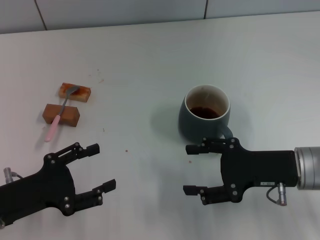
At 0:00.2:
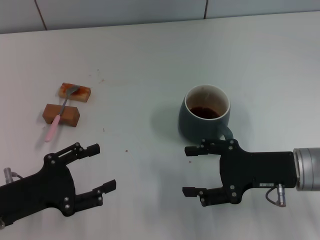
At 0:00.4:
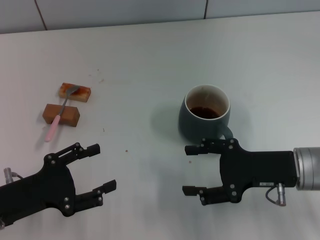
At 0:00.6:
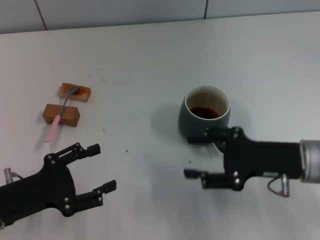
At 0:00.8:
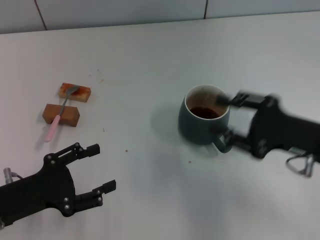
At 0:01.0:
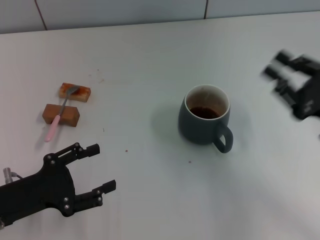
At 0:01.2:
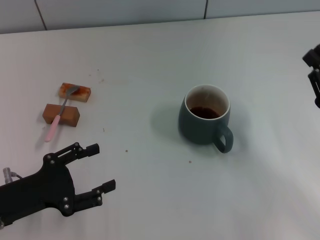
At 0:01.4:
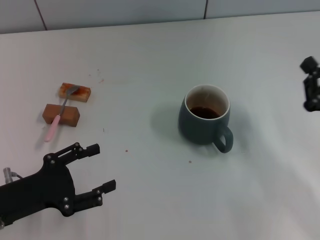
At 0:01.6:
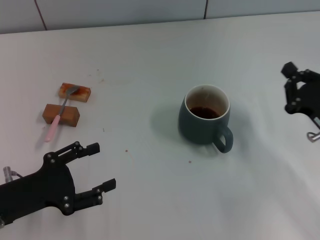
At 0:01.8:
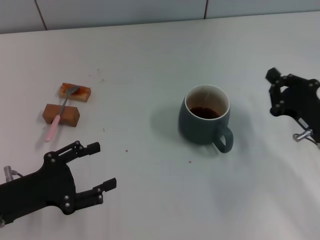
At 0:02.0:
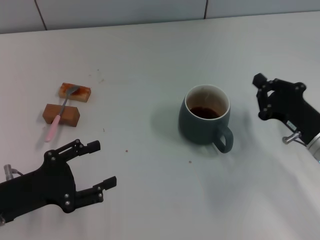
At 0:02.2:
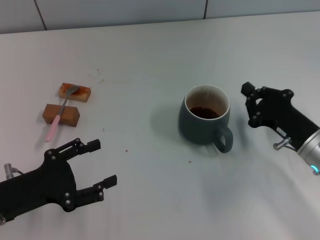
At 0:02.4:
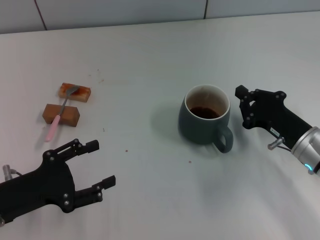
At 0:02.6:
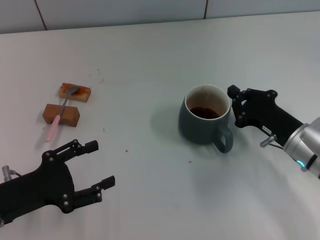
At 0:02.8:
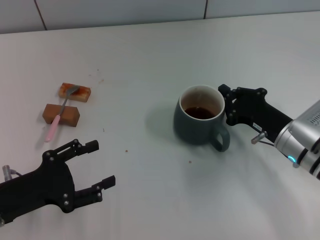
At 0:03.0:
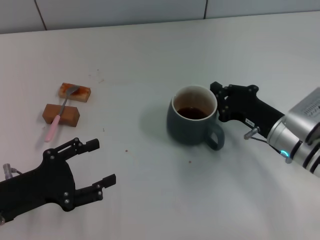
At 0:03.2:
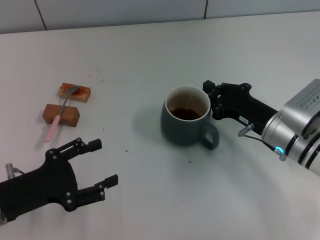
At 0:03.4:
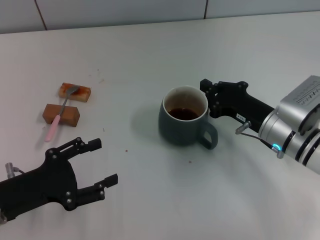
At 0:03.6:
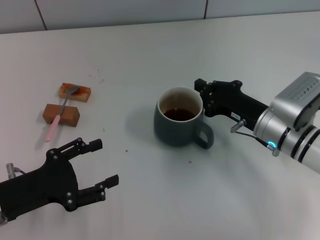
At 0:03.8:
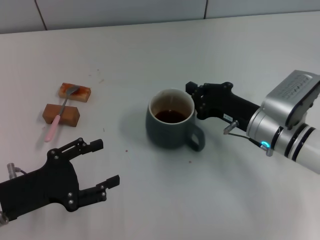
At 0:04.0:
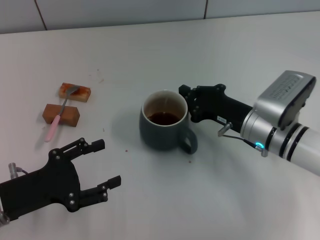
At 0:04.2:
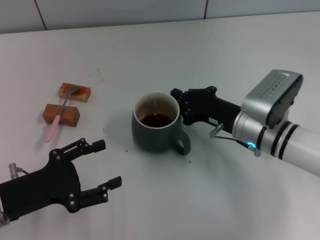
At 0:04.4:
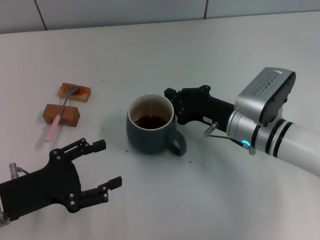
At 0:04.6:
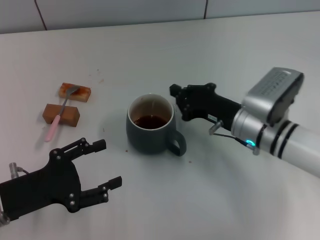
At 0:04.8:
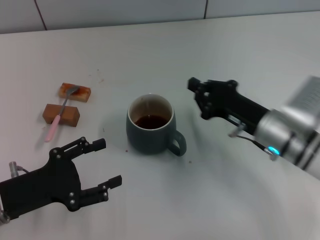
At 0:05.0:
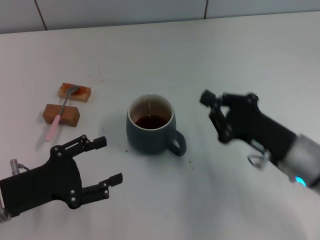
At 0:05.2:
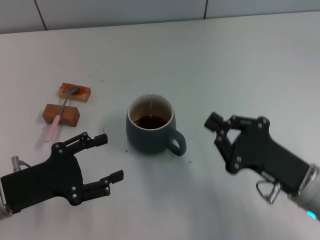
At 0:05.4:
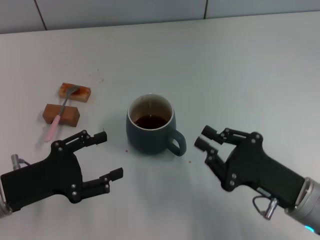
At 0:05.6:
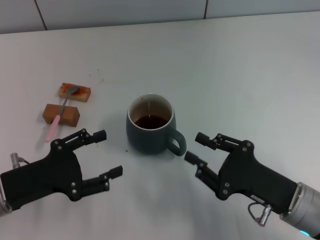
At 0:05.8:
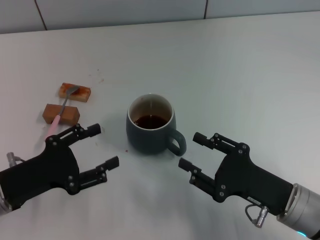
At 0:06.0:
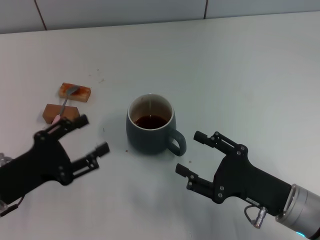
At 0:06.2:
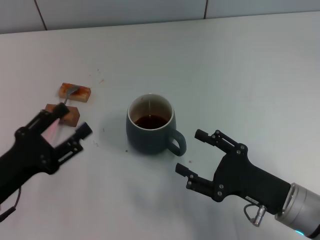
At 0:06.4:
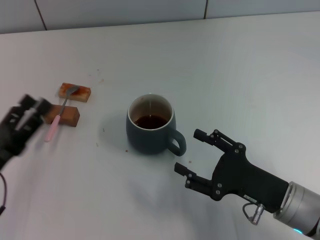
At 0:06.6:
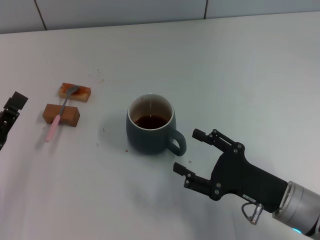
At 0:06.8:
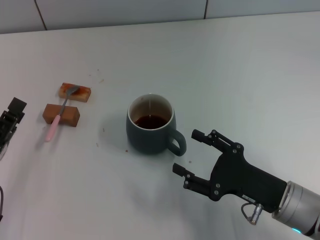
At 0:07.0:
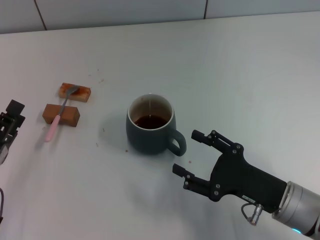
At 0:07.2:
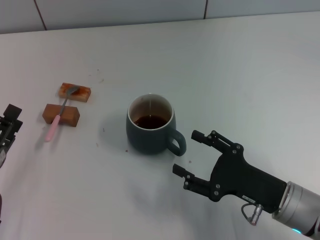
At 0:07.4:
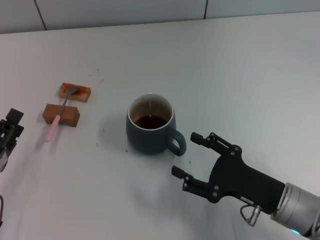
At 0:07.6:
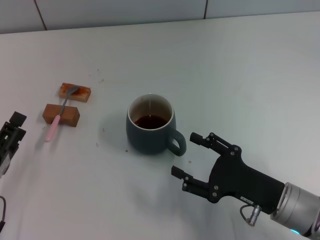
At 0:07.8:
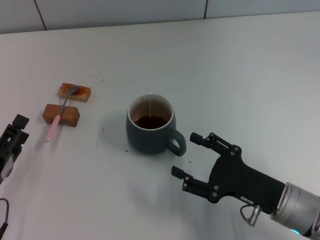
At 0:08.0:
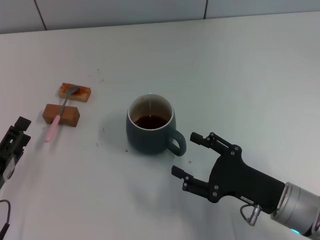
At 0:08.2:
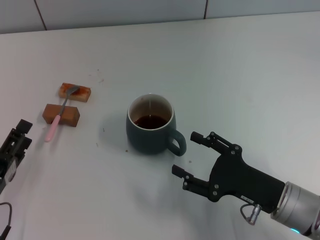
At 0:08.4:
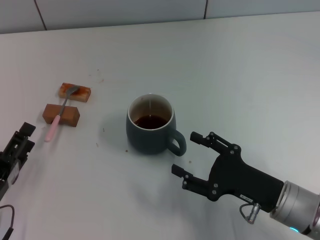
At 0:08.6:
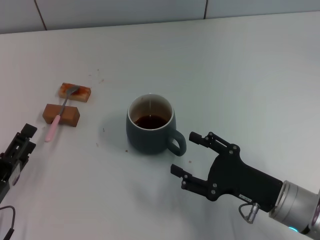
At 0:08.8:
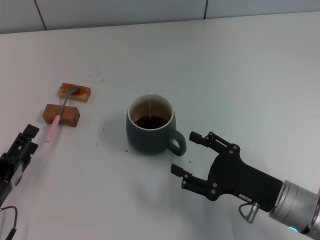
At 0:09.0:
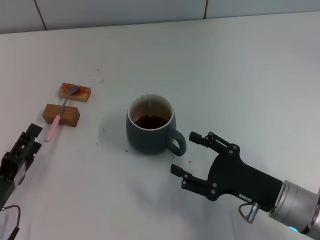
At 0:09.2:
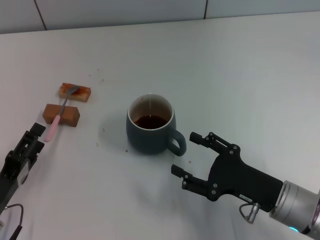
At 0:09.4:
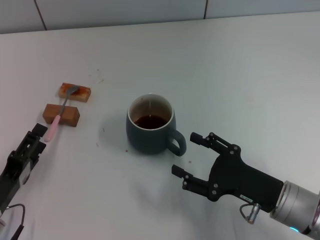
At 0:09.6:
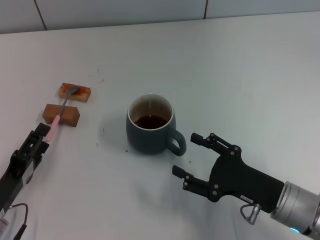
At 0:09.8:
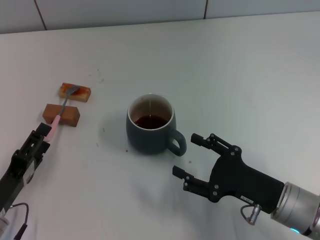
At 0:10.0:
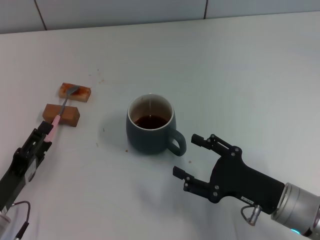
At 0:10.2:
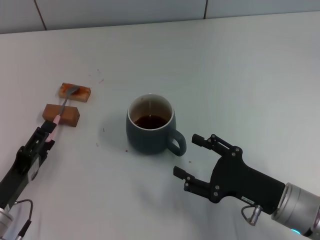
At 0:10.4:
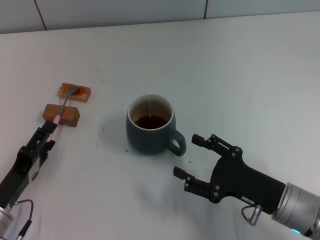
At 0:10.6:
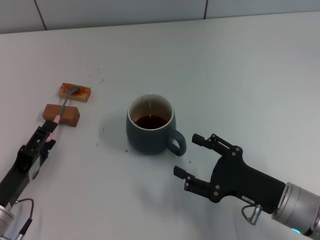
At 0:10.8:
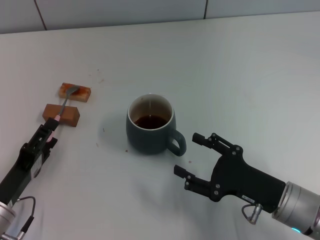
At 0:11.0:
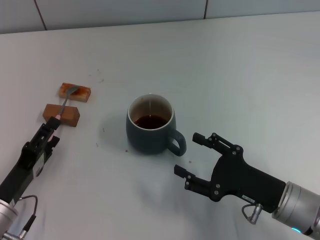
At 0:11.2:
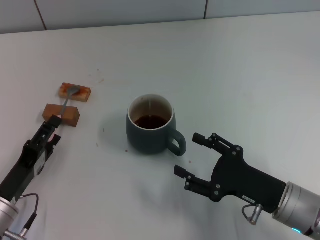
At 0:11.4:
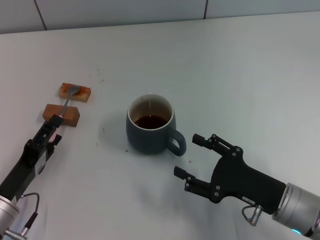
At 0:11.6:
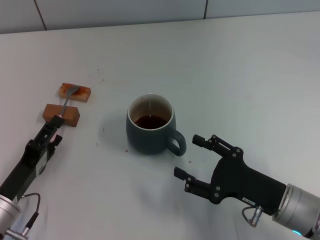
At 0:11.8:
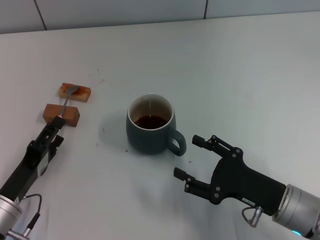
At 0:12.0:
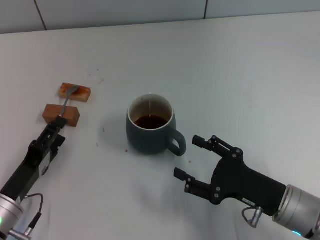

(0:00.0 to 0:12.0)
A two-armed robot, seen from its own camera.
Task of the whole recording: Move the grey cup to the center, lift the pink spoon, stir it three times in the cup, and put the spoon into the cup.
Step, 0:00.0 - 0:04.6: Move the cup with coffee to the center of view with the right gripper.
0:00.0 - 0:01.6: The right gripper shifts about 5 cm to the right, and closes its fingers.
0:01.6 - 0:03.0: The right gripper is displaced to the left by approximately 5 cm.
0:03.0 - 0:04.4: The right gripper goes about 5 cm to the left.
0:04.4 - 0:06.0: The right gripper shifts some 15 cm backward, and opens.
0:06.0 - 0:07.6: The left gripper moves about 5 cm.
0:07.6 - 0:12.0: The grippers stay close to where they were, moving slightly.

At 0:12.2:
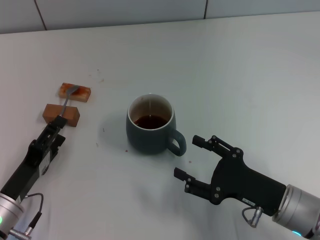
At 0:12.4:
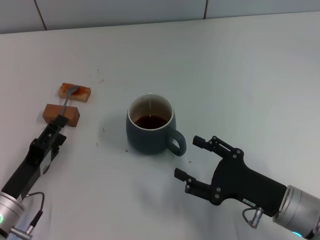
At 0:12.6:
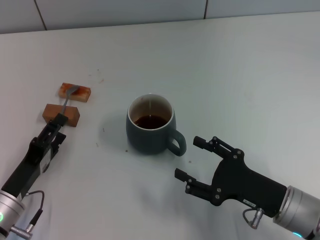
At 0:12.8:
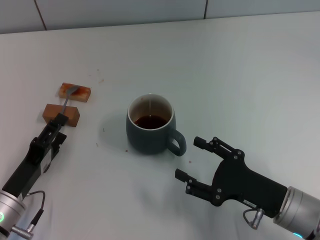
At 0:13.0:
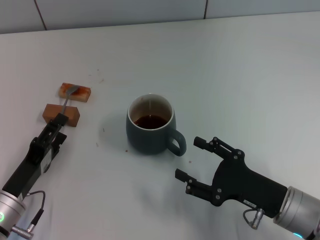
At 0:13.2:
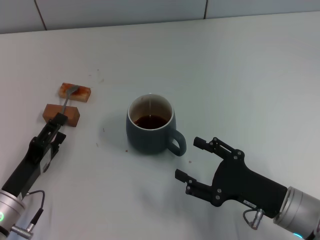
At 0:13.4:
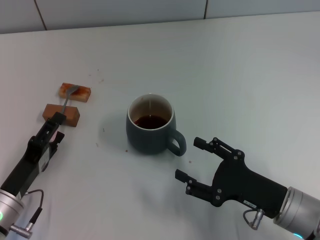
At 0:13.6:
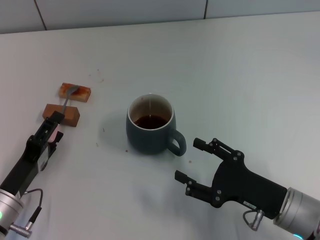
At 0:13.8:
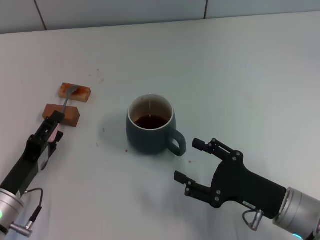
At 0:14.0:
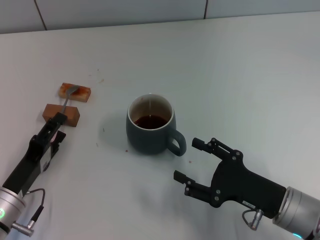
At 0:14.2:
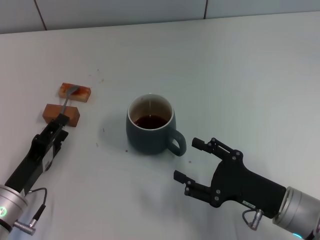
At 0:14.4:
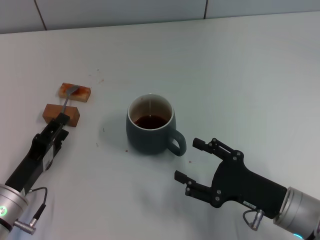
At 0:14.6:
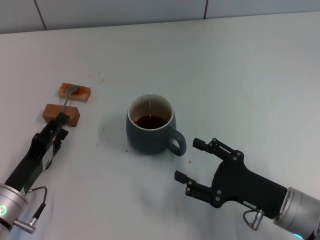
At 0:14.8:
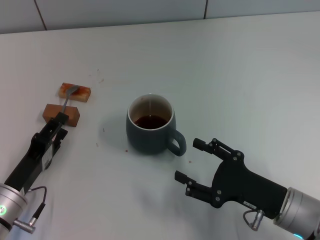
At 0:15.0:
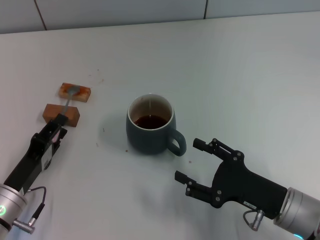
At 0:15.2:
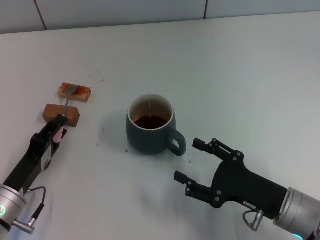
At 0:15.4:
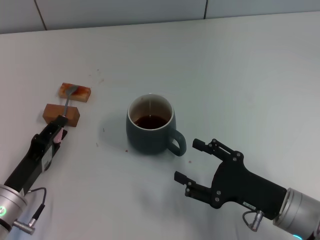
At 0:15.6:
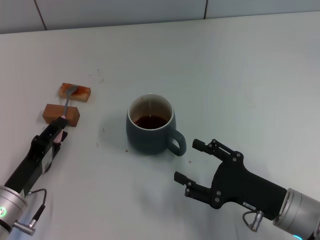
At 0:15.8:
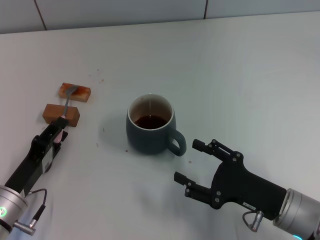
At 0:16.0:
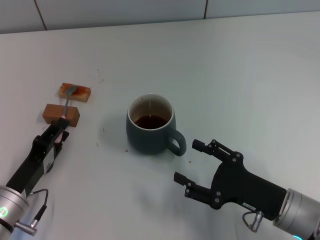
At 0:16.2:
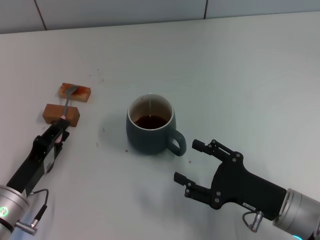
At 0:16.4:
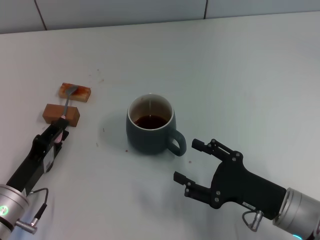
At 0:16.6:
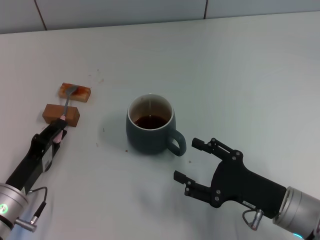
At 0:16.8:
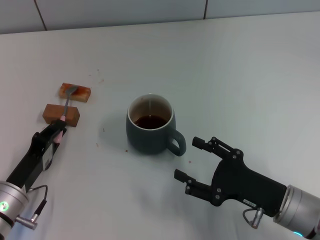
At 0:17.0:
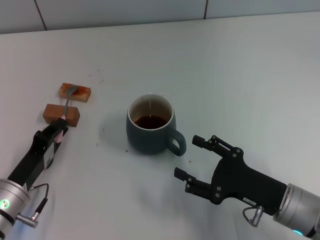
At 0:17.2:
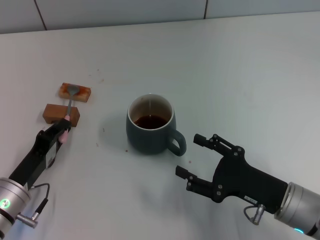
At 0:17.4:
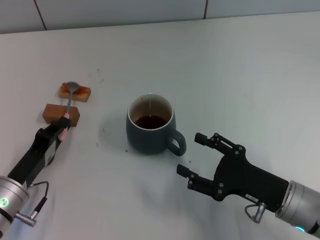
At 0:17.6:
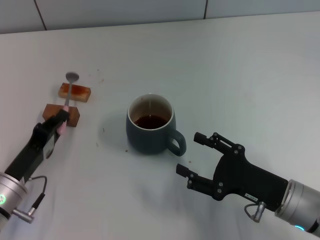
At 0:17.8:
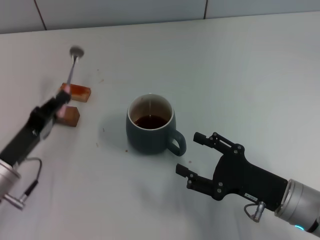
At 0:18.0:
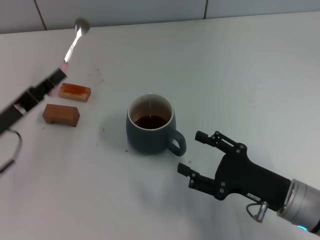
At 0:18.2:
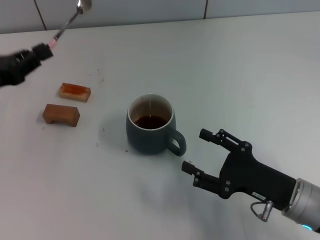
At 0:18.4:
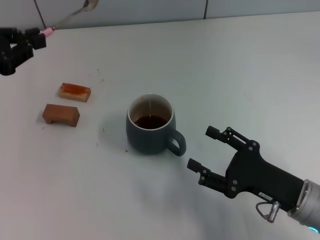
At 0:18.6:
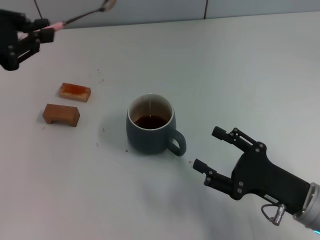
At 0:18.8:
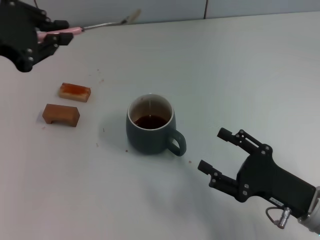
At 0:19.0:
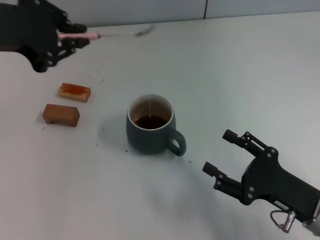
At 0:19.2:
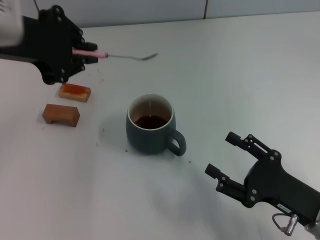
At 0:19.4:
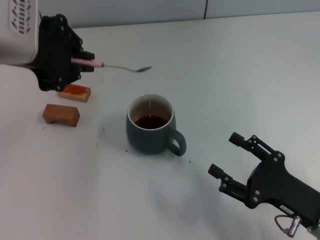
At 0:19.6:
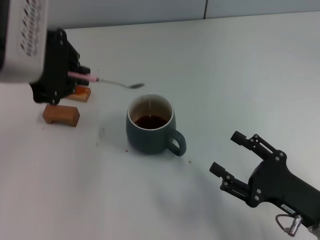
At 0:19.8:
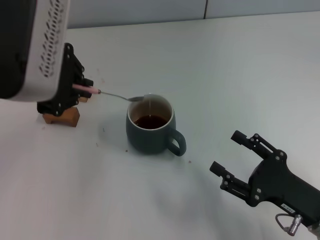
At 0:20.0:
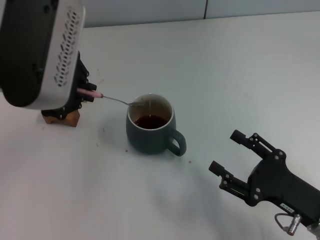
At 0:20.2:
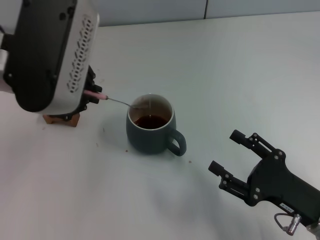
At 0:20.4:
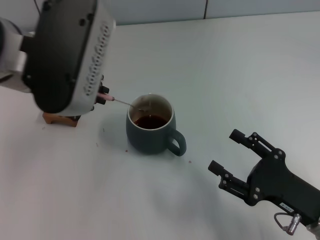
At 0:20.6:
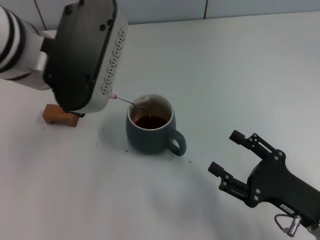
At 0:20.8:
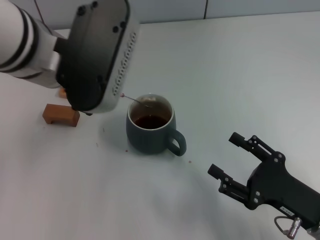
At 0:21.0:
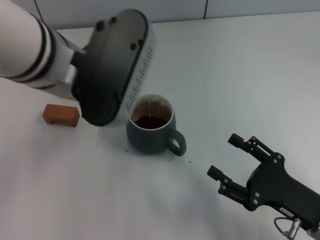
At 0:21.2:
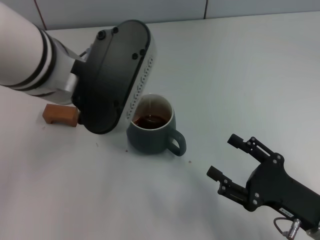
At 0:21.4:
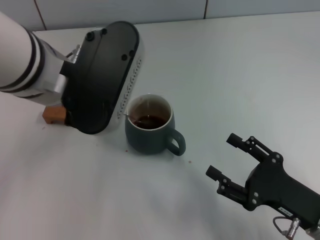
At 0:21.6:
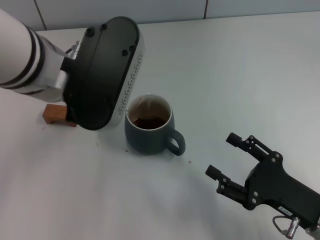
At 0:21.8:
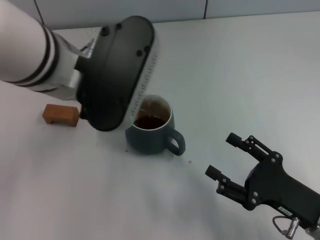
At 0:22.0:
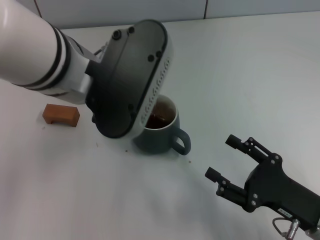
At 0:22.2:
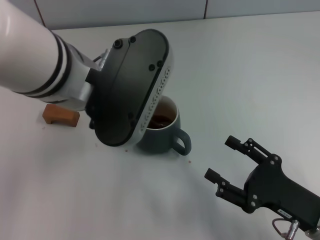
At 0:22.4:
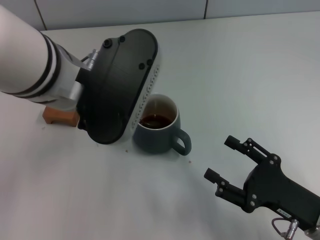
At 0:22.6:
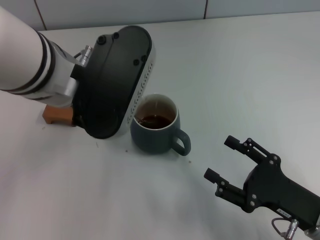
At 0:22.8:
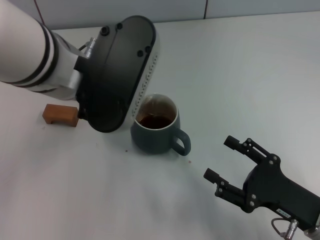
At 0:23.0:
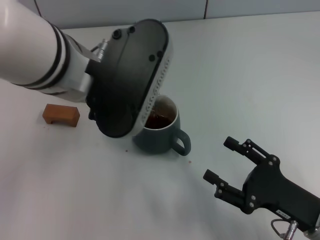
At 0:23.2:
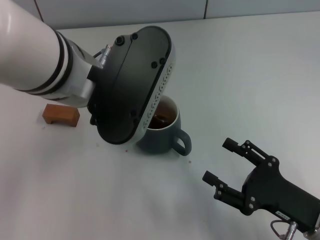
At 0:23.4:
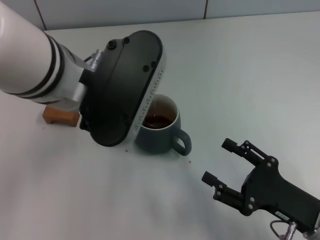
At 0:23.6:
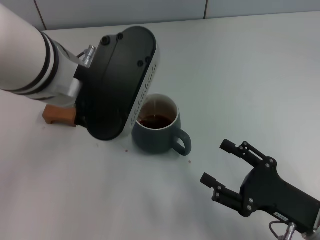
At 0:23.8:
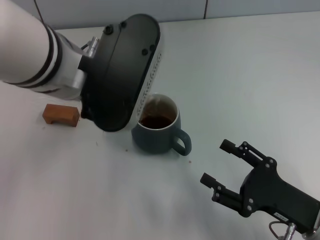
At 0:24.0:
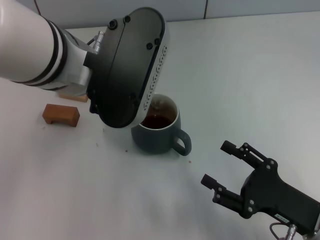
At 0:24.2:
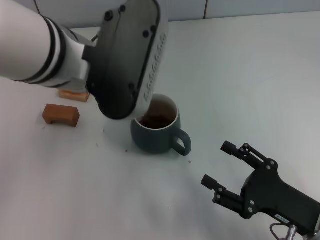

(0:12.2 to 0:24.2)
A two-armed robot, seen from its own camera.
Task of the whole recording: Move the grey cup to the center, lift the pink spoon, stir it three times in the cup, and put the spoon into the cup.
Step, 0:12.2 - 0:17.4: Pick up the spoon with the left gripper.
0:12.2 - 0:13.8: Both grippers stay put.
0:13.8 - 0:15.2: The left gripper closes its fingers.
0:15.2 - 0:16.6: The two grippers keep their place.
0:16.6 - 0:18.2: The left gripper shifts roughly 15 cm upward, forward and to the left.
0:18.2 - 0:19.8: The left gripper shifts roughly 20 cm upward and to the right.
0:19.8 - 0:21.2: The left gripper shifts some 5 cm to the right.
0:21.2 - 0:24.2: The grippers stay close to where they were, moving slightly.
